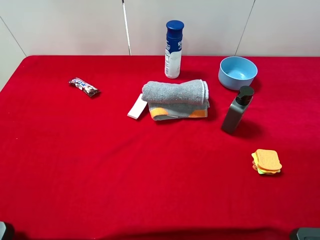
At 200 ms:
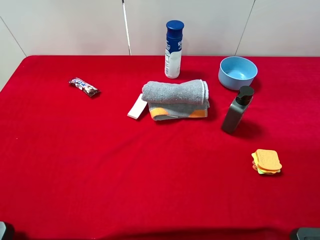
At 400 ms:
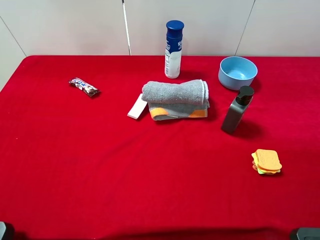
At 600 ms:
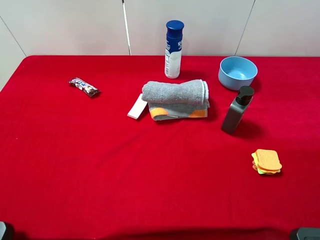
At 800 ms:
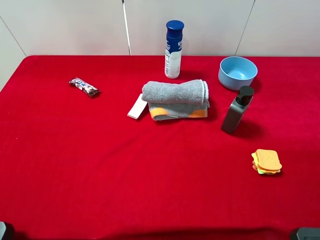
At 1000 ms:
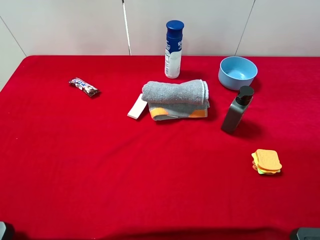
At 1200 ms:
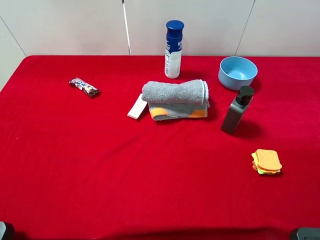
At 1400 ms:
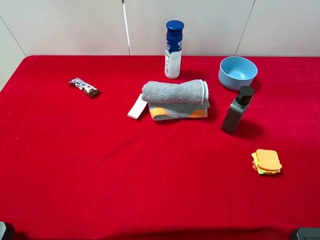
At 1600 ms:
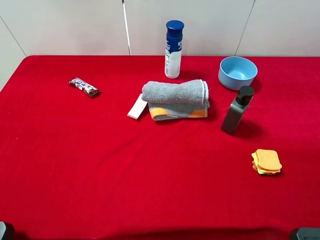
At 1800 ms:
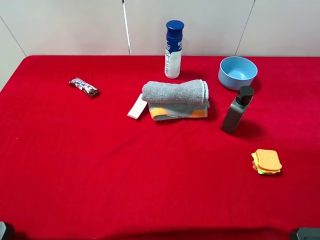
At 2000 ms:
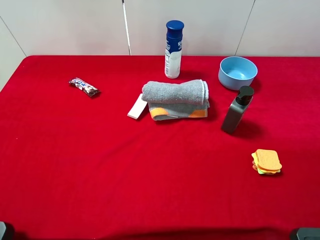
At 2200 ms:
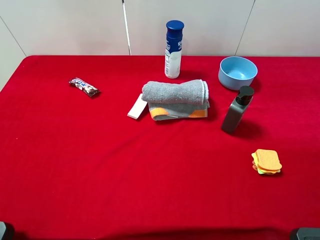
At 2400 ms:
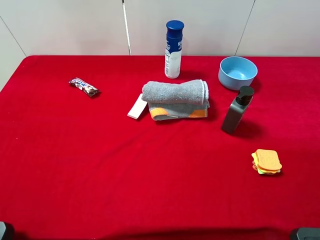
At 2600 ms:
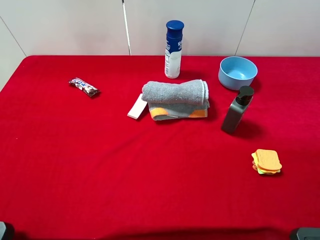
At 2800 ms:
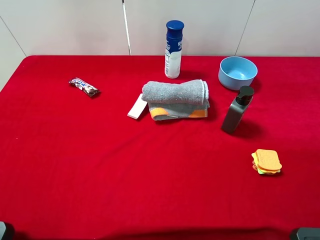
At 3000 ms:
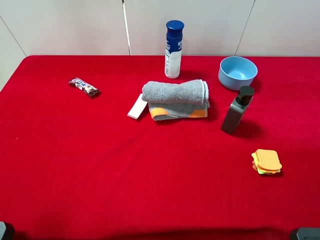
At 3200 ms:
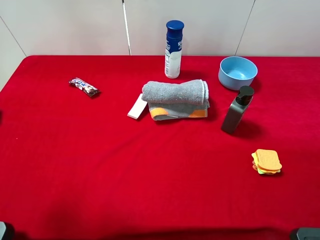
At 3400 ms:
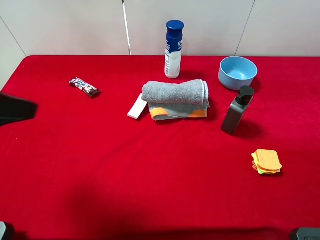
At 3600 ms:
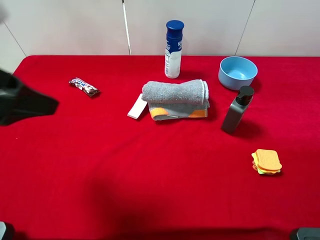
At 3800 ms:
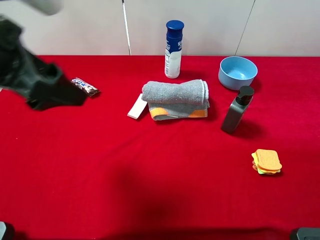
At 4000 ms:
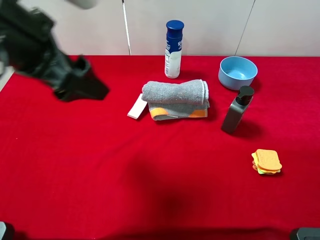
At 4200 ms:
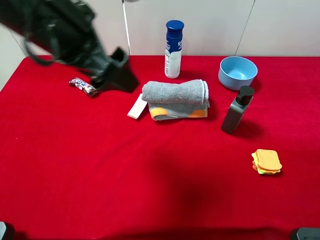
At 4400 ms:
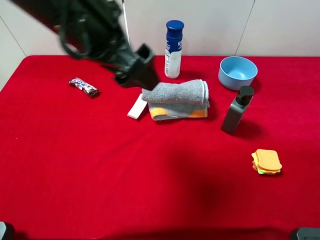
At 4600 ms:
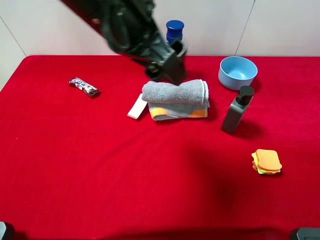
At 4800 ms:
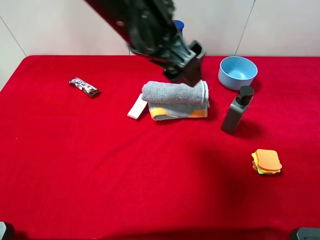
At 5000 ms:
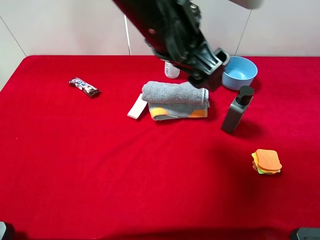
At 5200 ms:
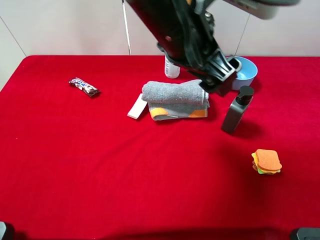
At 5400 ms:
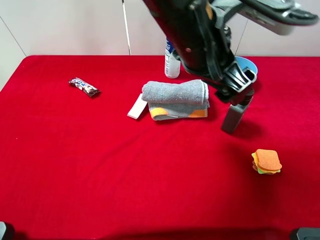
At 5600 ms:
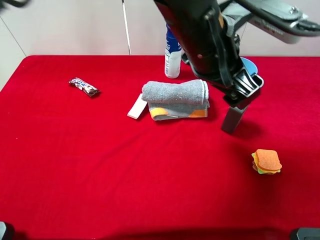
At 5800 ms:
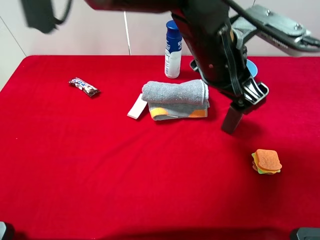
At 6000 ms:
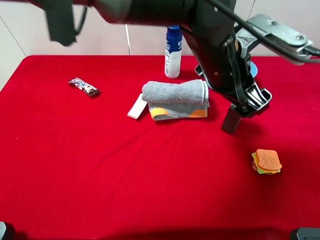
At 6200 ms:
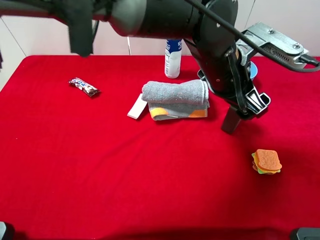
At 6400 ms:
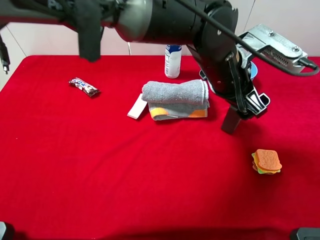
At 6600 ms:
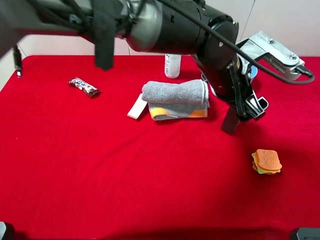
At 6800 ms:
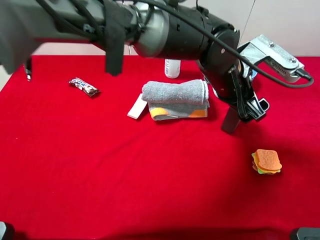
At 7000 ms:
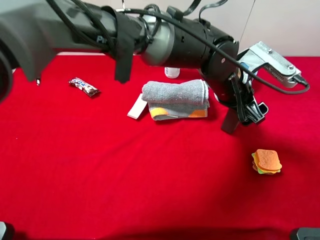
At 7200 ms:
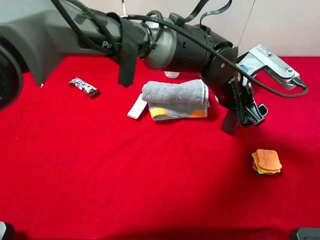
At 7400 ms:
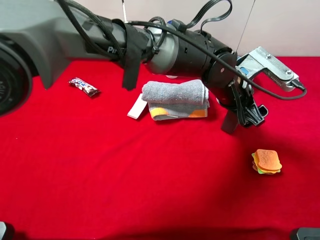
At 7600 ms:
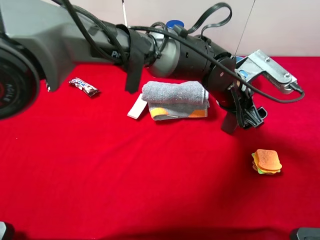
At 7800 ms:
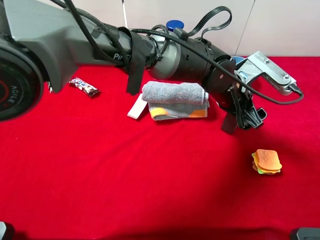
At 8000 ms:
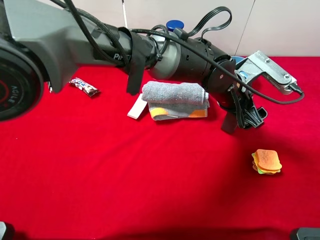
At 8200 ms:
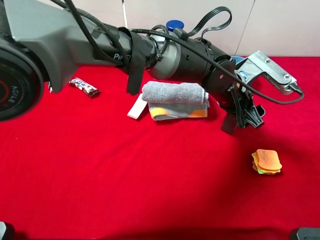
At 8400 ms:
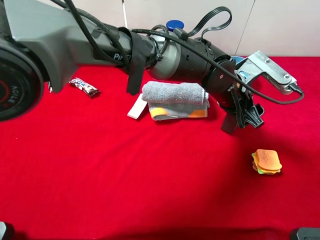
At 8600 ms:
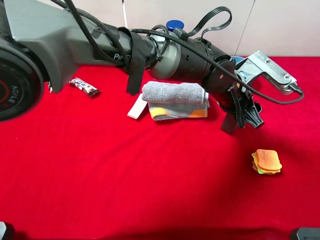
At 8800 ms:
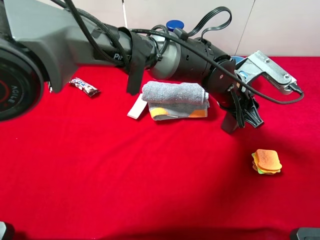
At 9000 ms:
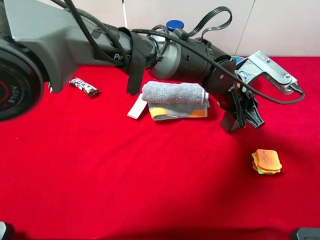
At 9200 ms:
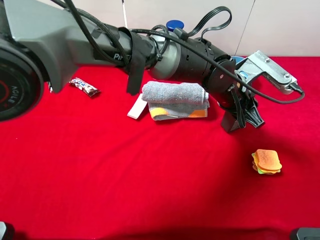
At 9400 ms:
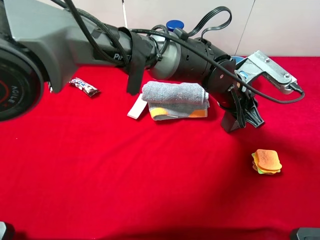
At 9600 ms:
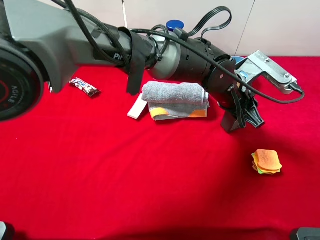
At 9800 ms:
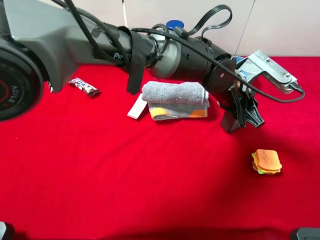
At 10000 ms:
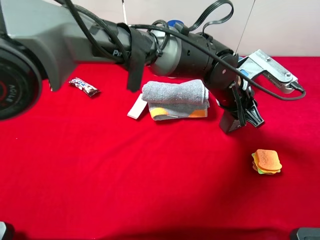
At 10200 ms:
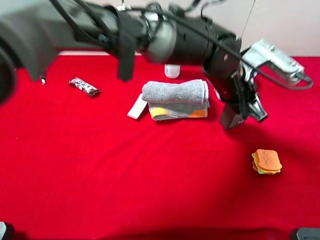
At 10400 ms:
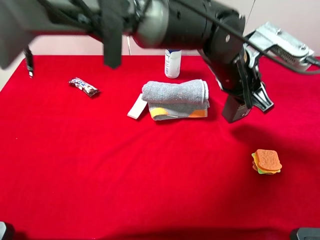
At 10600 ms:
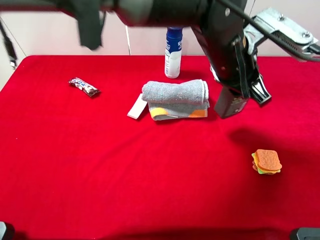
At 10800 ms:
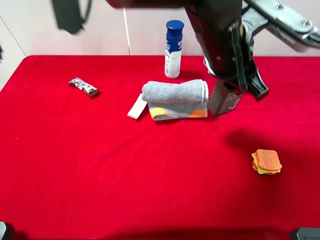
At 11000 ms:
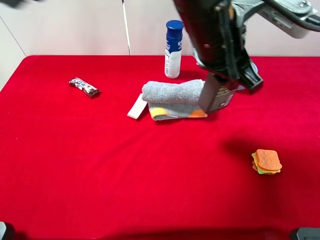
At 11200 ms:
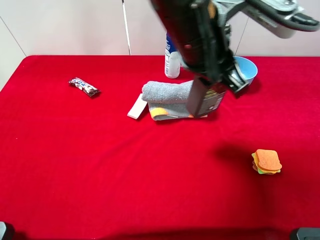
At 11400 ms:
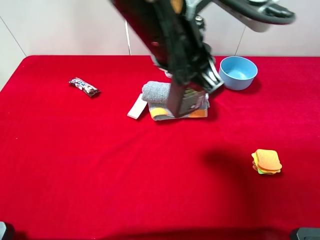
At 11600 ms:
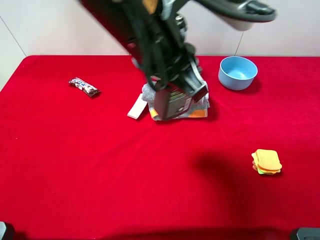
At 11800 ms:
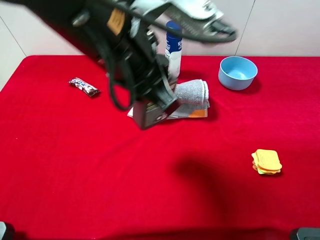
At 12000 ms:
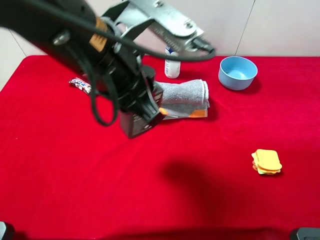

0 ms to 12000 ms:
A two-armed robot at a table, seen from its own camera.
Task of the whole recording: the gripper move the object.
Step, 0 ms to 8800 ms: Grasp the hard facial cleanser with the left gripper.
0 ms to 1600 ms: The two grippers keep their place.
3000 ms to 4400 ms: The left gripper heads to the right and forward, covering roughly 25 cm.
4400 ms to 6000 ms: The left gripper goes approximately 20 cm to the right and downward.
6000 ms to 7600 ms: The left gripper goes roughly 10 cm downward.
7600 ms to 9000 ms: The left gripper closes.
9000 ms to 10400 ms: The left gripper shifts some 5 cm upward.
10400 ms to 12000 ms: The left gripper is displaced to the left, backward and upward by approximately 20 cm.

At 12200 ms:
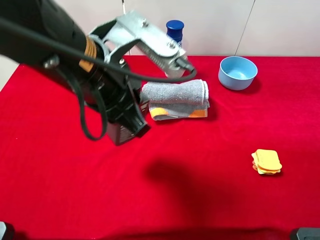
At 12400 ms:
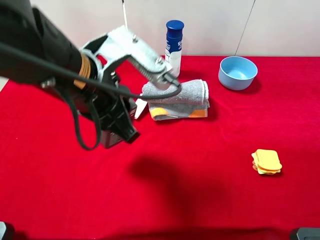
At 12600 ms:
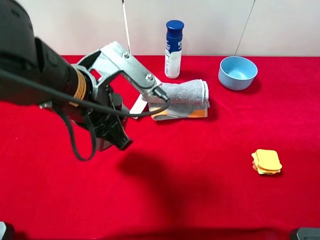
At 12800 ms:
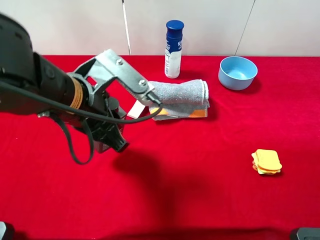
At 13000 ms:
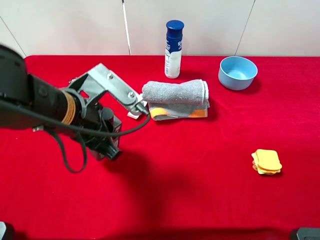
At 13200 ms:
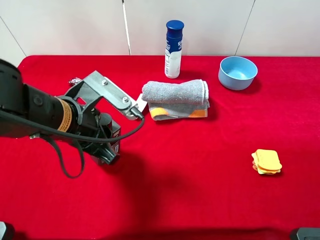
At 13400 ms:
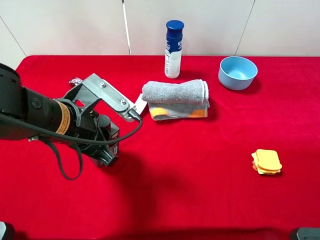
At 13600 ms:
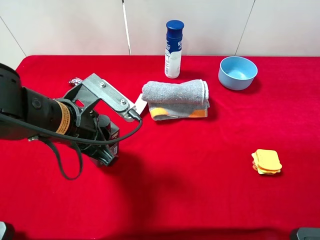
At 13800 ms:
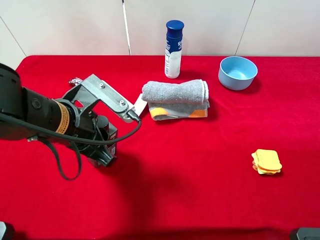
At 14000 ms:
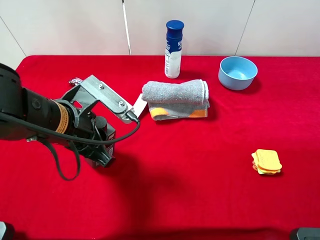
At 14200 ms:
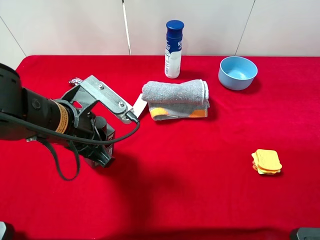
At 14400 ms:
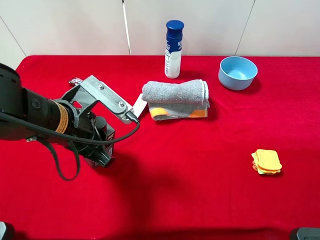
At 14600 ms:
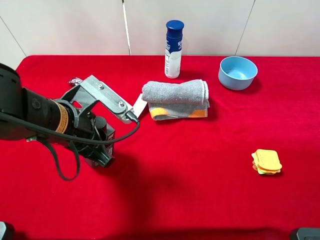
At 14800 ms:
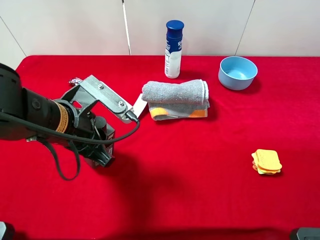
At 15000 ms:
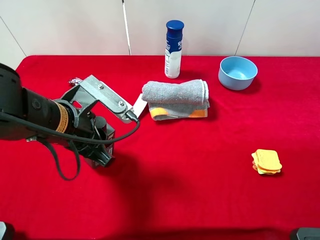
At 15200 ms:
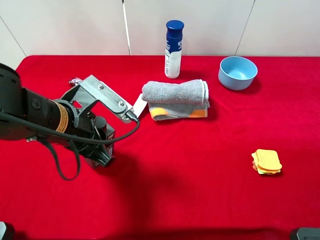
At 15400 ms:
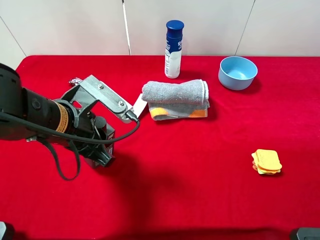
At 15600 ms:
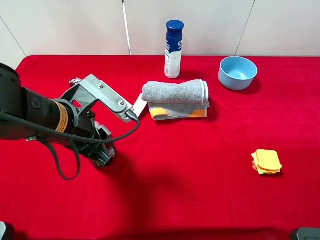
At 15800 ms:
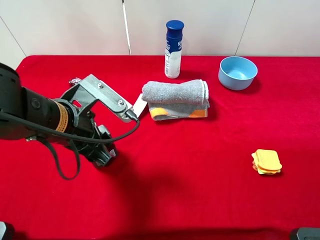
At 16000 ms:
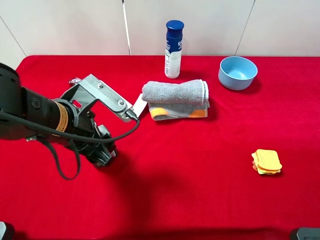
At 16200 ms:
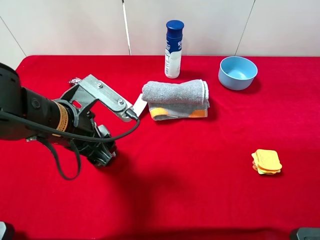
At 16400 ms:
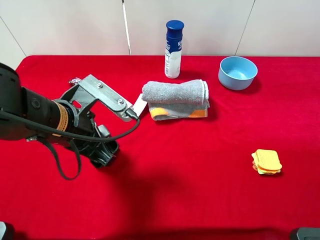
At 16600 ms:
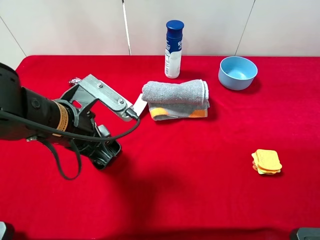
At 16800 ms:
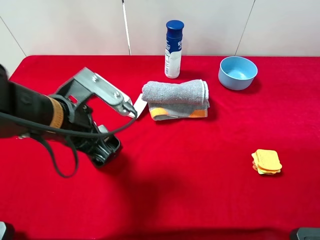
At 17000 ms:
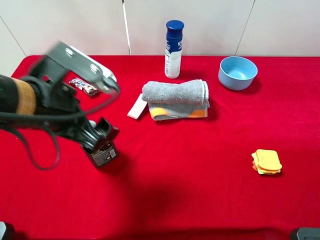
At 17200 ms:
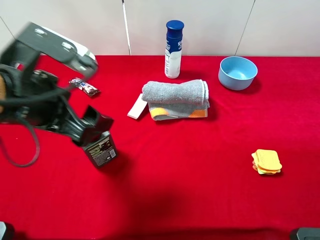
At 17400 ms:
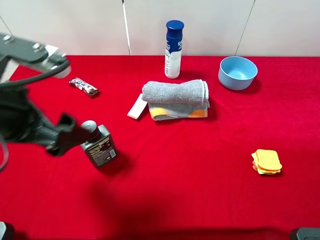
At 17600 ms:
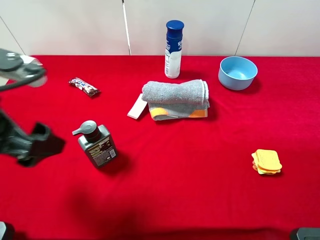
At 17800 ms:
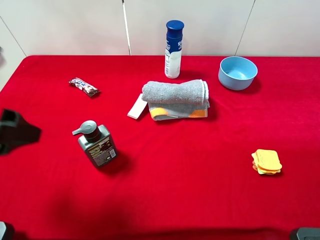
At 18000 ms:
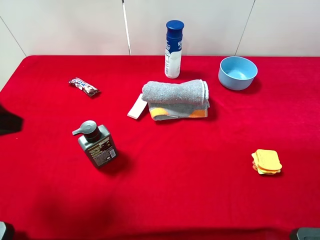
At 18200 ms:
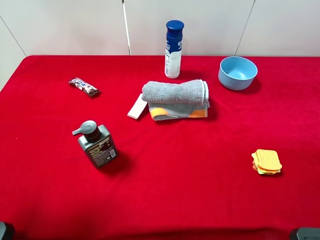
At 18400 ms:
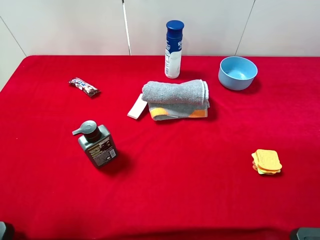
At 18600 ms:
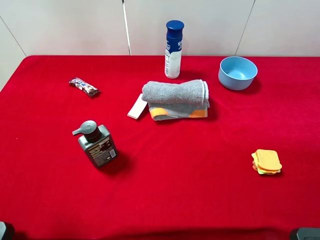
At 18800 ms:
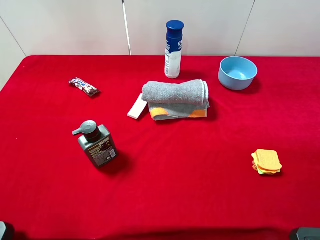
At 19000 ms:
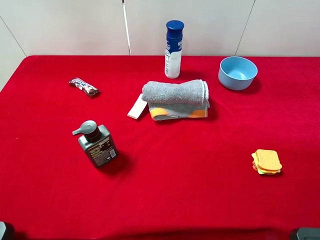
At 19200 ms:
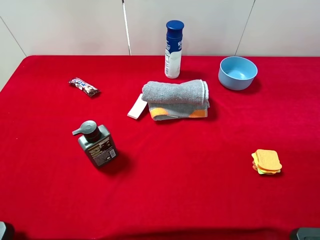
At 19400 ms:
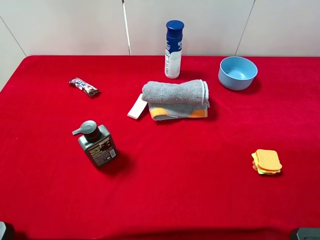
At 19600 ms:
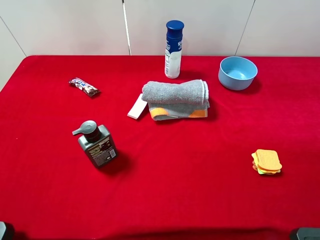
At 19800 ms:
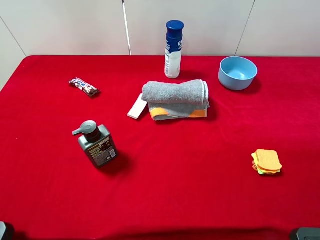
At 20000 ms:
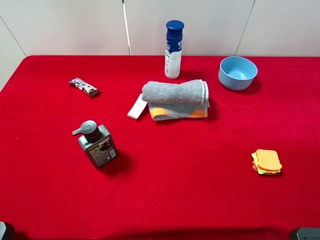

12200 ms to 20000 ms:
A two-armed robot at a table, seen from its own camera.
Task of the whole recording: the gripper move the object.
Step, 12200 ms to 17400 ms: Place the hard facial cleanser on the table with the left gripper.
12200 ms to 13800 ms: The left gripper moves downward and to the left, approximately 10 cm.
13800 ms to 15400 ms: Both grippers stay put.
15400 ms to 16800 ms: The left gripper opens.
16800 ms to 18400 ms: The left gripper moves to the left, backward and upward, approximately 20 cm.
